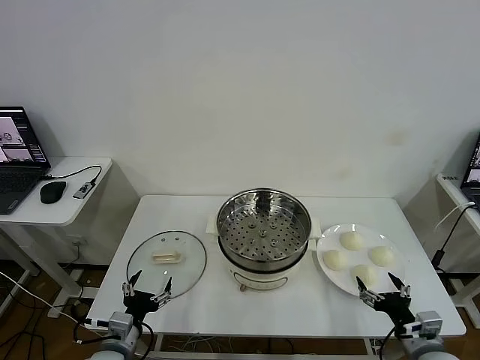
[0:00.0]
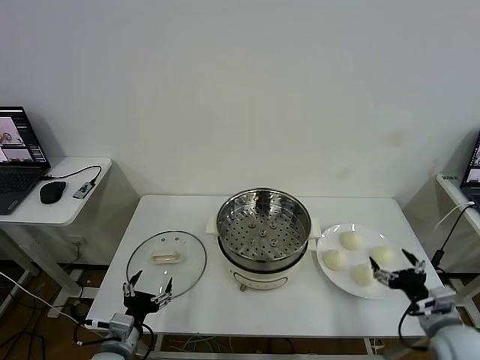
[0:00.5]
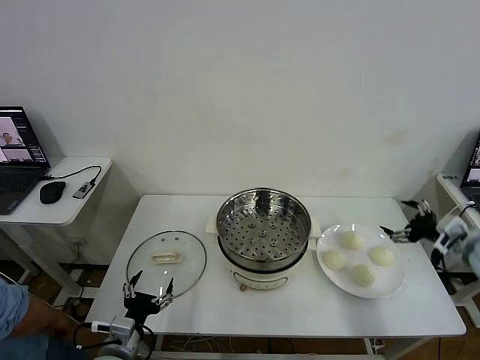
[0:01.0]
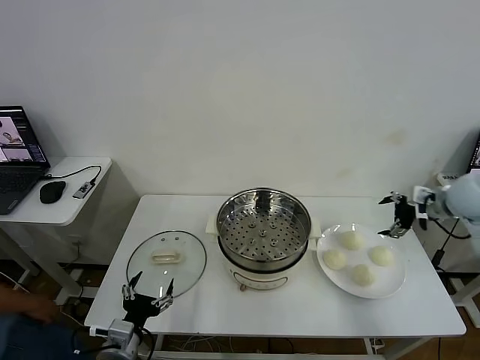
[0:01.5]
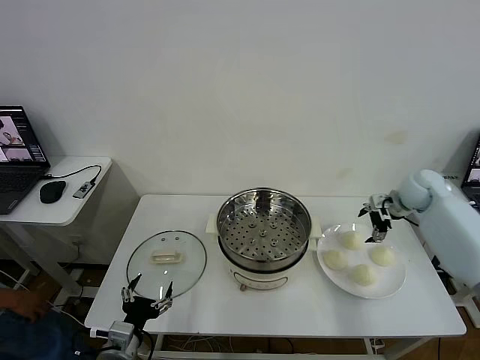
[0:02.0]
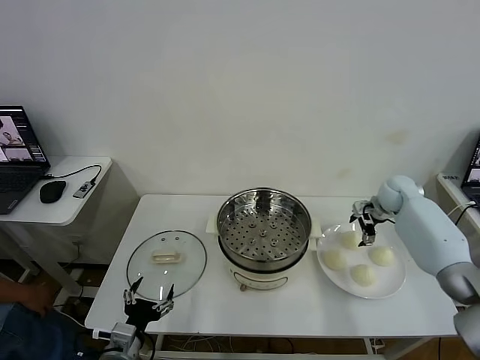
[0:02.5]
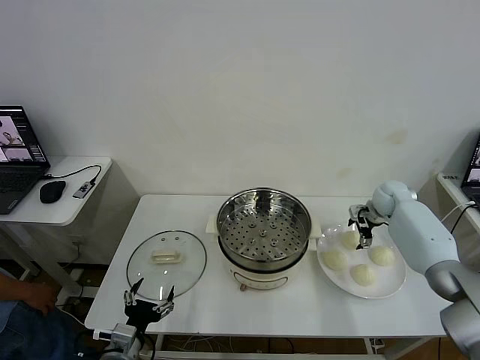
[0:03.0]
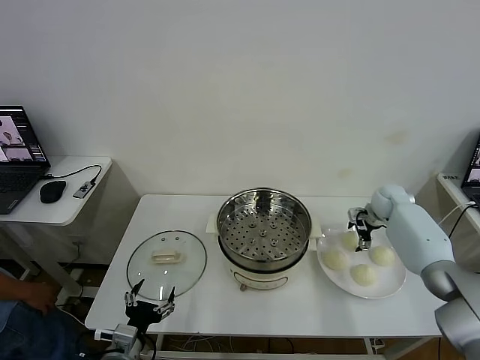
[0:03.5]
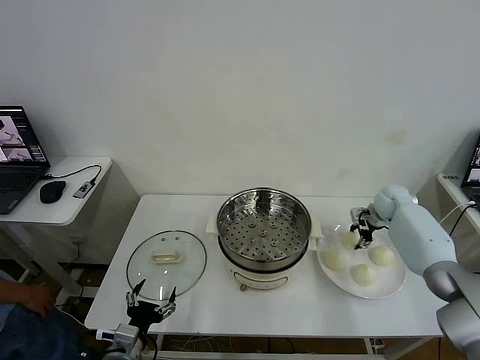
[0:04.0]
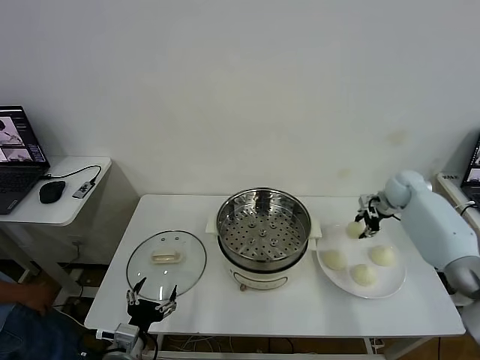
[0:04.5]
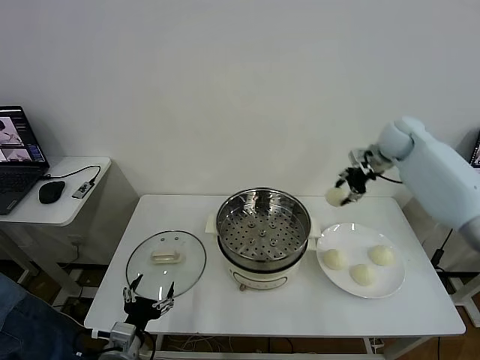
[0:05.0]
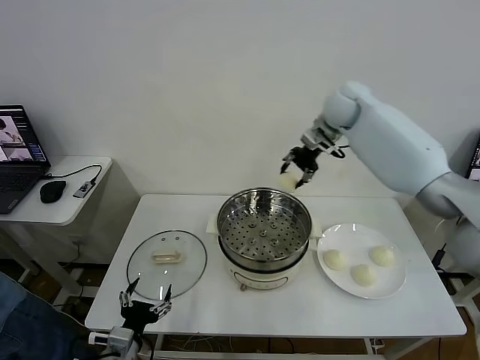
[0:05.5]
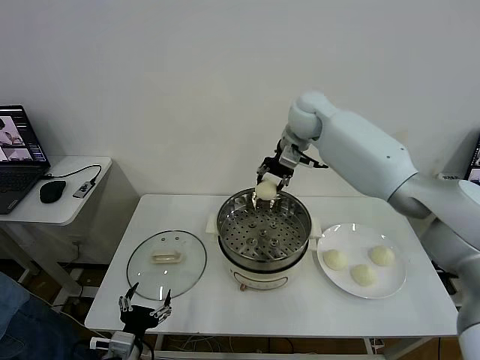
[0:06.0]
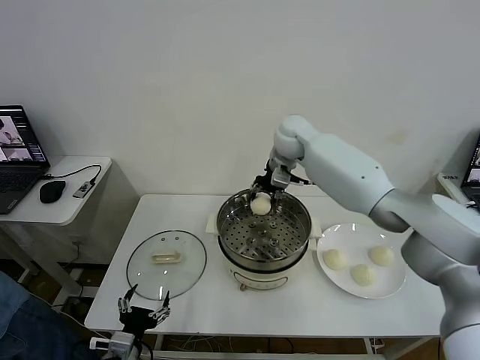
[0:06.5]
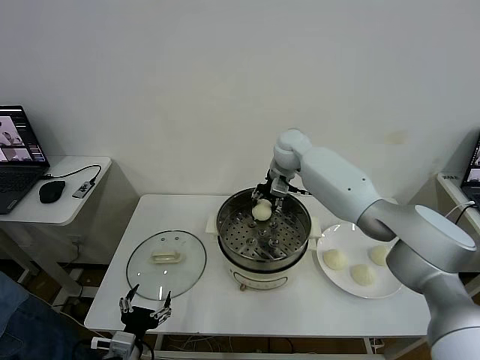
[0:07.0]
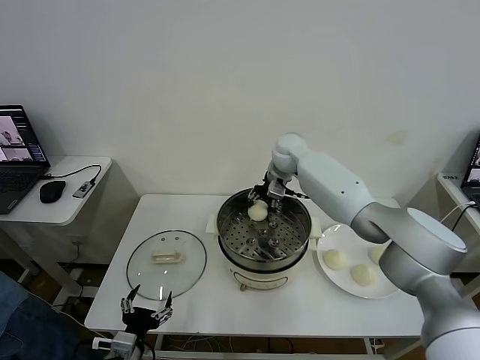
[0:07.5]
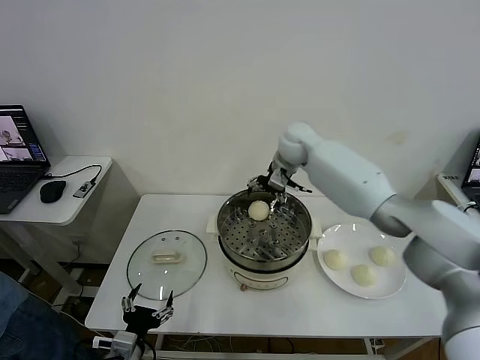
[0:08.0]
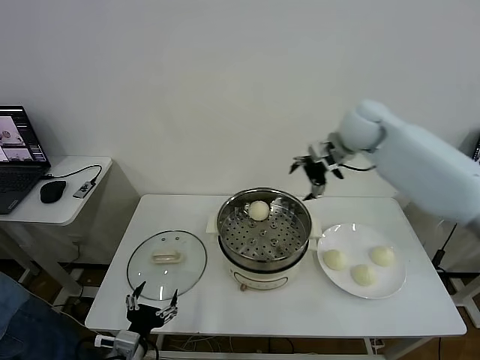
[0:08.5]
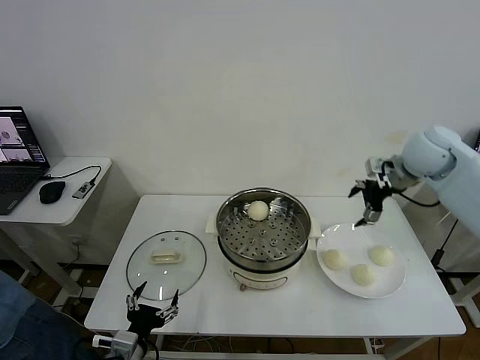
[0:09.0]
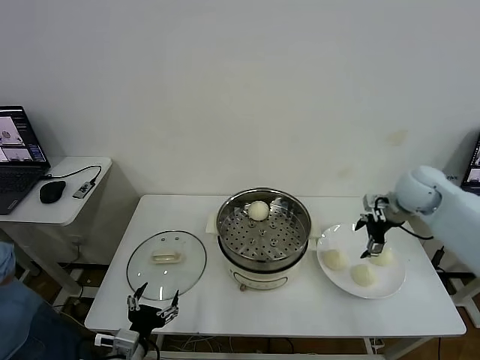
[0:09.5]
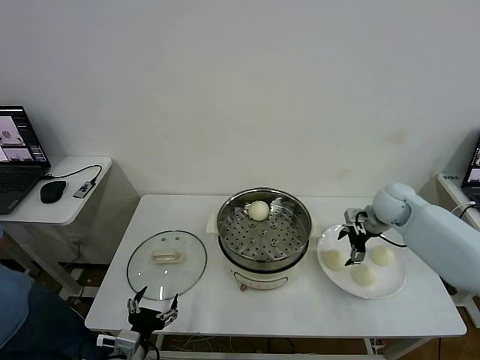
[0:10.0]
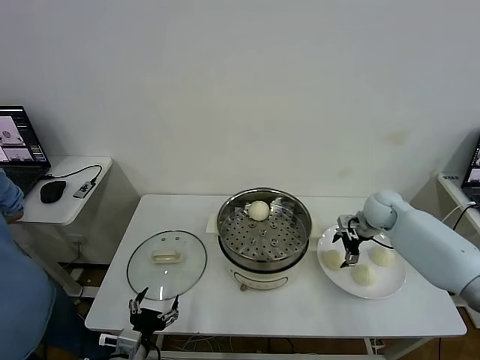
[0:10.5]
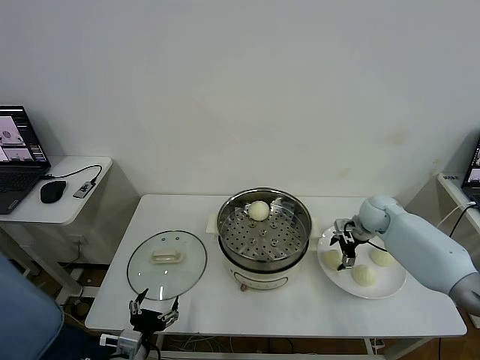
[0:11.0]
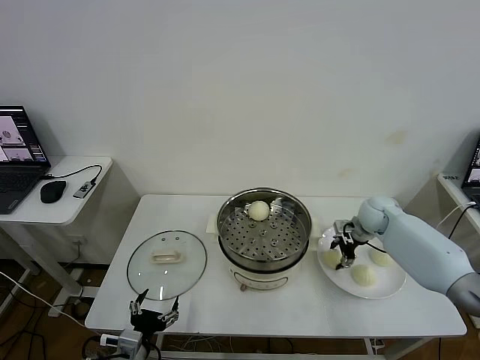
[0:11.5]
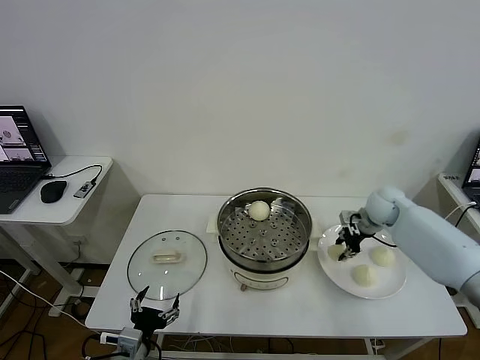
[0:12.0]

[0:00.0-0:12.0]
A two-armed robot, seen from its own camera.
Task of the whole recording: take steamed baozi put them in steamer then cover it.
Step, 0:00.0 to 0:04.0: Grasp the baozi in the plate with right gripper.
Step, 0:04.5 to 0:07.5: Place the baozi on the steamer with right gripper.
Step, 0:08.0 to 0:11.5: Grasp the baozi in the plate with right gripper.
0:02.0 to 0:04.0: The right gripper heads downward, covering some 5 cm, and closes up.
0:04.0 to 0:06.0: The right gripper moves to the left and upward, roughly 35 cm.
0:06.0 to 0:08.0: The right gripper opens.
0:08.0 to 0:10.0: The right gripper heads to the right, downward and backward, covering about 25 cm.
0:10.0 to 0:12.0: The right gripper closes its fingers.

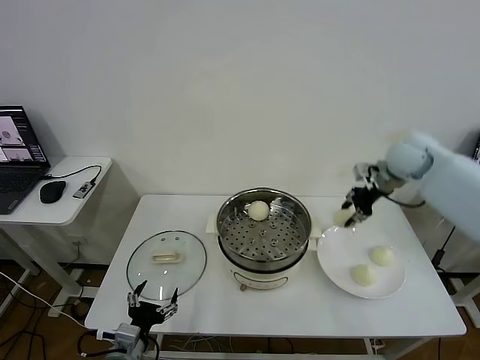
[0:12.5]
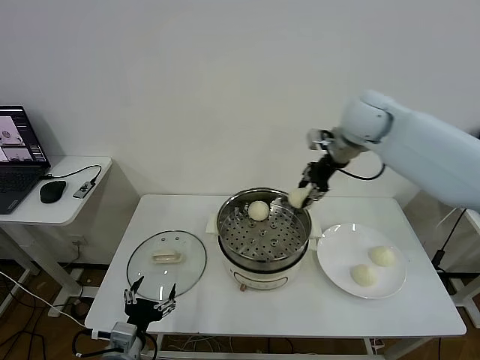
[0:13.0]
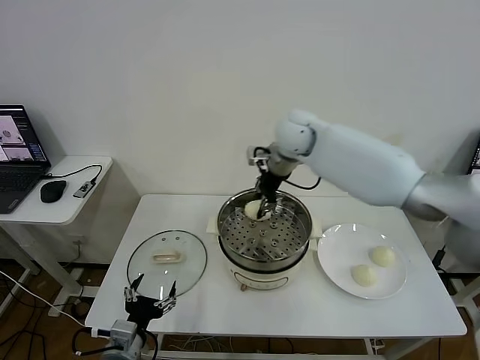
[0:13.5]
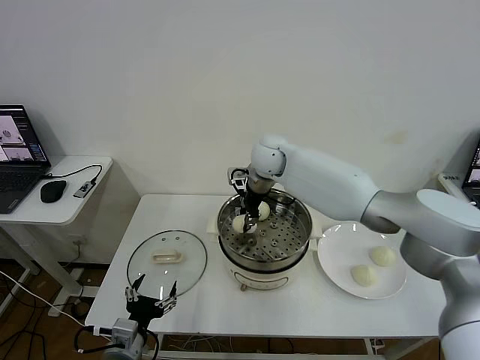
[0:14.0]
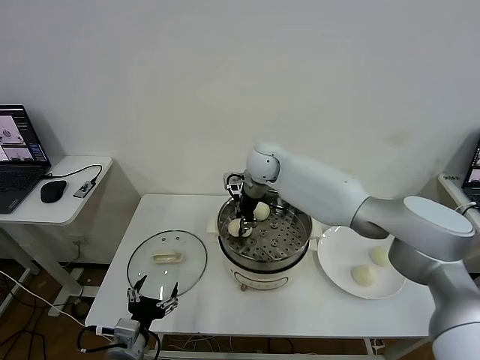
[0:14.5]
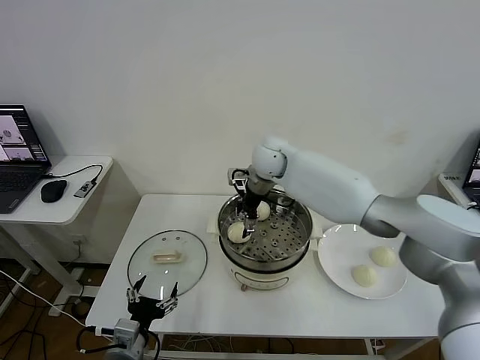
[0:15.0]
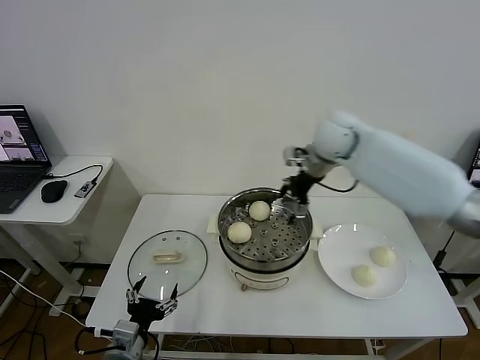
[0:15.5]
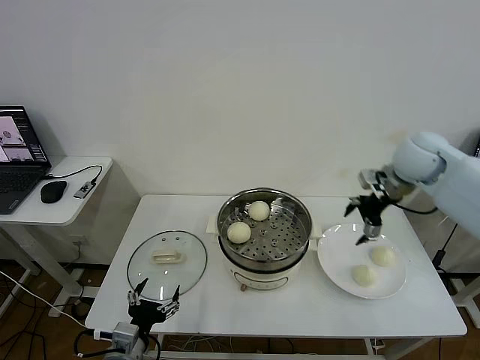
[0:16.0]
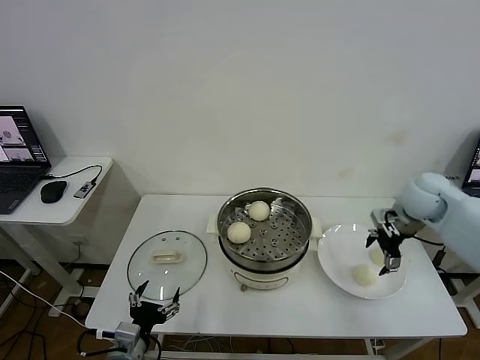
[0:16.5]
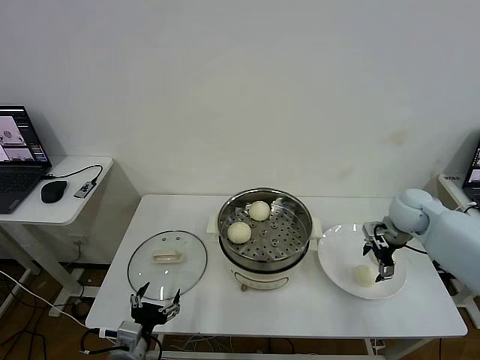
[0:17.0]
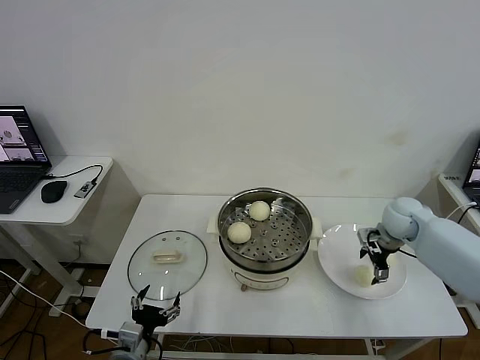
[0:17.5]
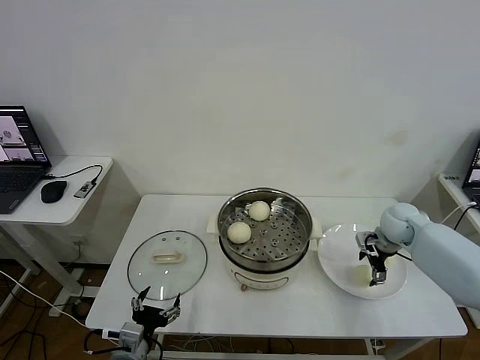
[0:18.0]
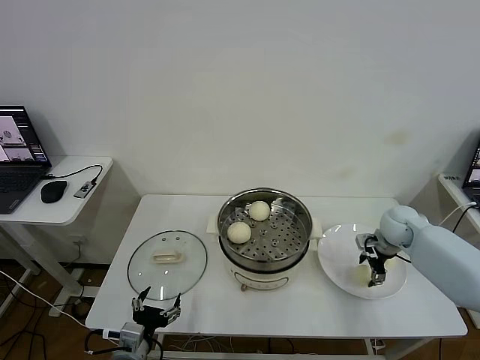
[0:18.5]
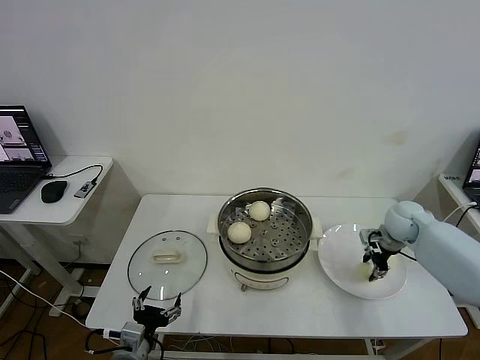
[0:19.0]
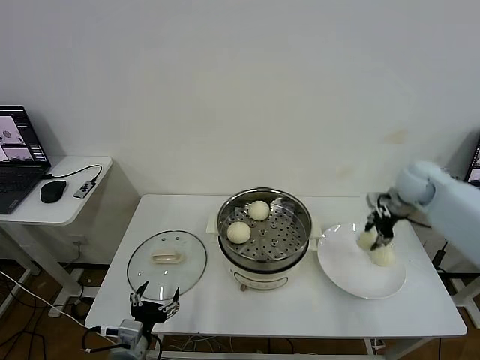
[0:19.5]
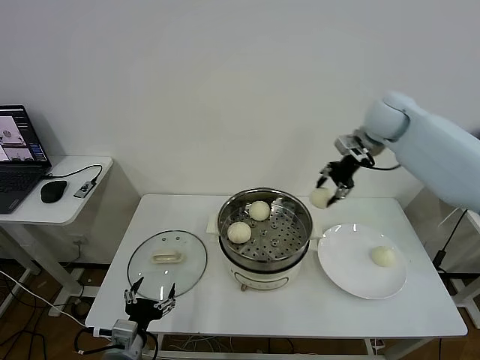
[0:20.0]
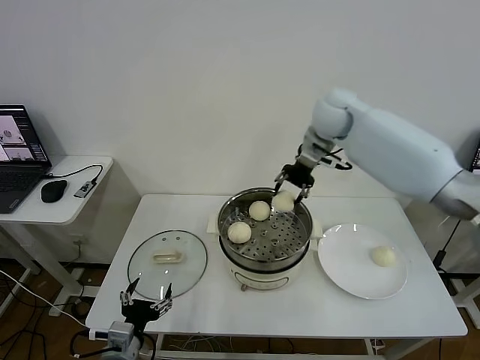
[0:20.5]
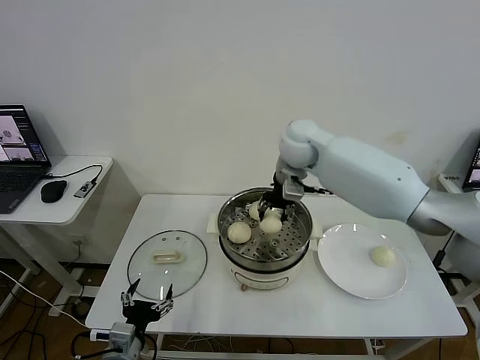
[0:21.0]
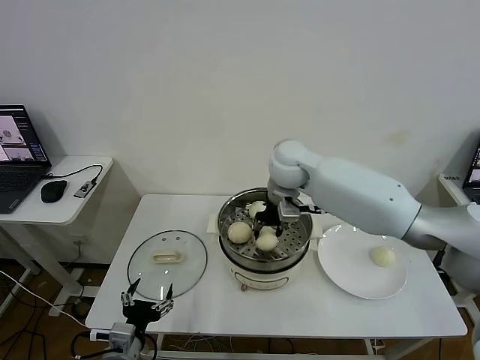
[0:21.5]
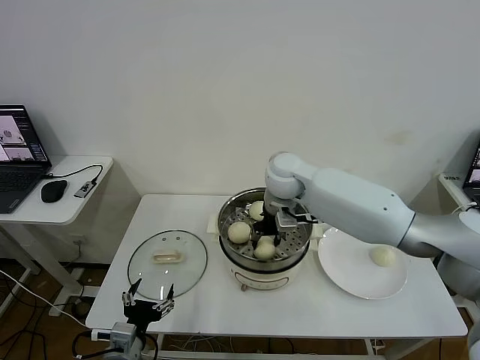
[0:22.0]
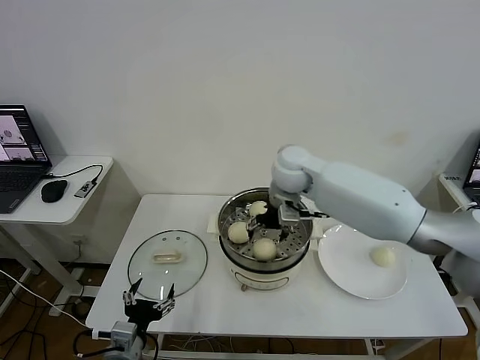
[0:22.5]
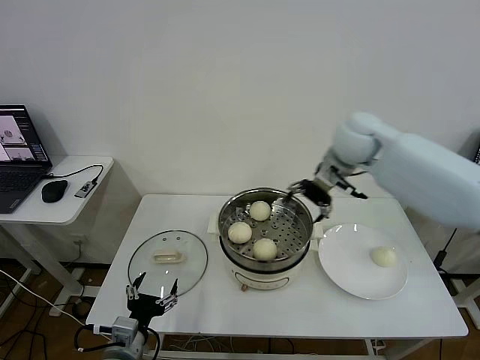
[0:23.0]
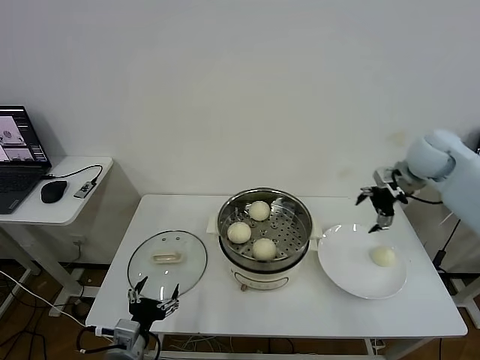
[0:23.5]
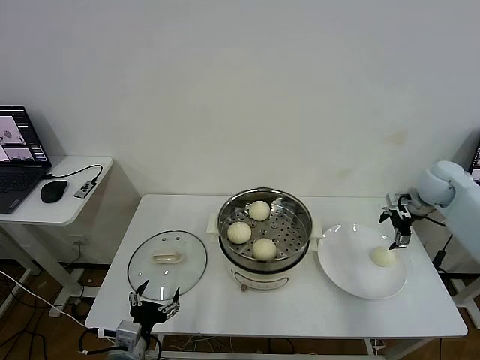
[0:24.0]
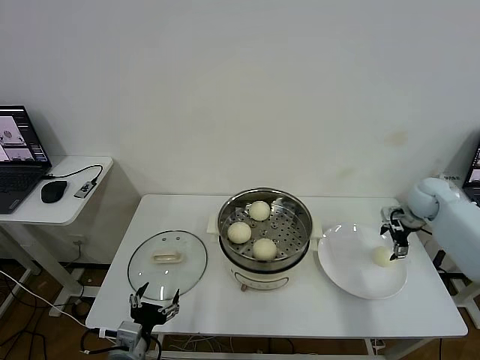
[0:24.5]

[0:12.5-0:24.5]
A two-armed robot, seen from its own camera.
Task of the whole recording: take steamed baozi put them in steamer then cover it.
Step, 0:12.5 to 0:14.5: Place the baozi on the steamer with right gripper.
Step, 0:15.0 to 0:19.0: Grasp the baozi in the plate with right gripper.
Step, 0:19.5 to 0:22.5: Place the baozi on the steamer with right gripper.
0:12.5 to 0:14.5: The right gripper heads to the left, covering approximately 30 cm.
0:14.5 to 0:16.5: The right gripper heads to the right, covering approximately 35 cm, and opens its fingers.
0:16.5 to 0:18.5: The right gripper travels downward by about 10 cm.
0:18.5 to 0:20.5: The right gripper travels upward, to the left and forward by approximately 35 cm, and closes up.
0:20.5 to 0:22.5: The right gripper is displaced downward, backward and to the left by roughly 10 cm, and opens up.
0:22.5 to 0:24.5: The right gripper goes approximately 35 cm to the right.

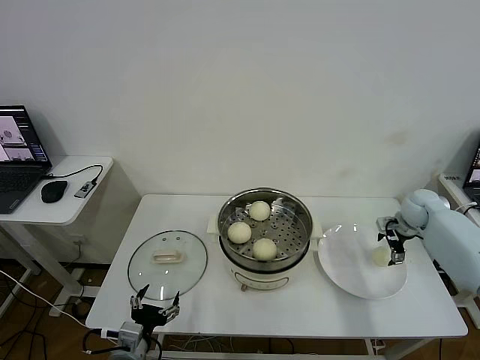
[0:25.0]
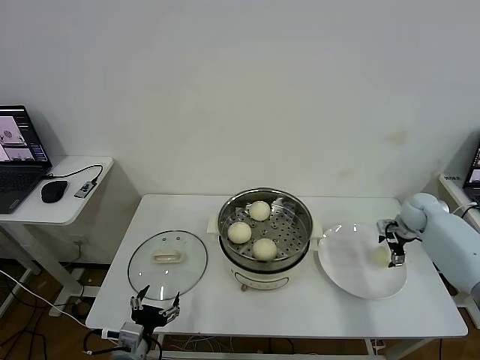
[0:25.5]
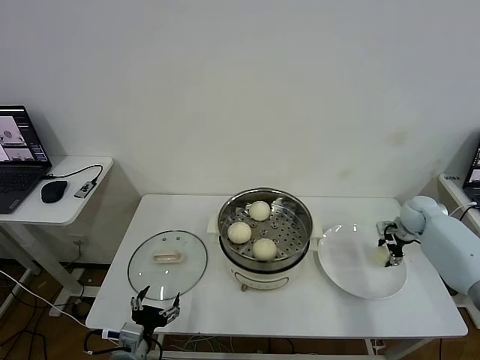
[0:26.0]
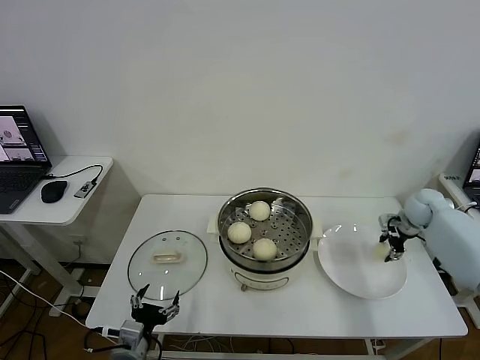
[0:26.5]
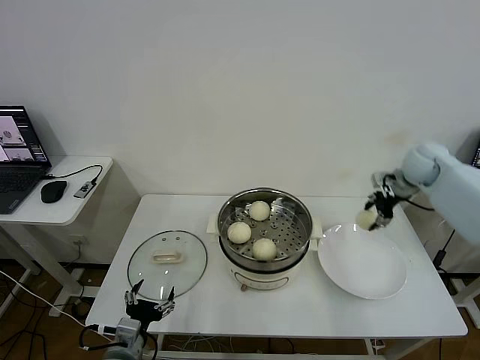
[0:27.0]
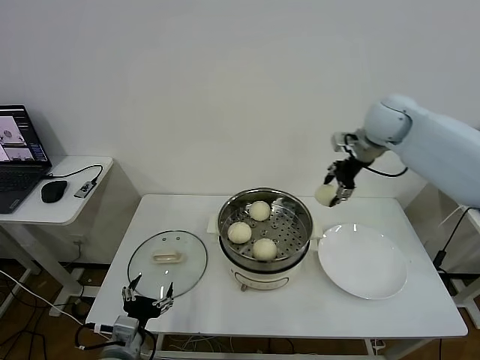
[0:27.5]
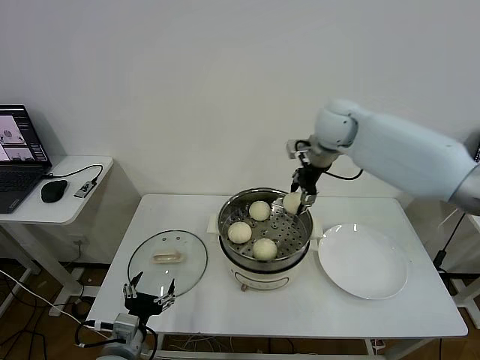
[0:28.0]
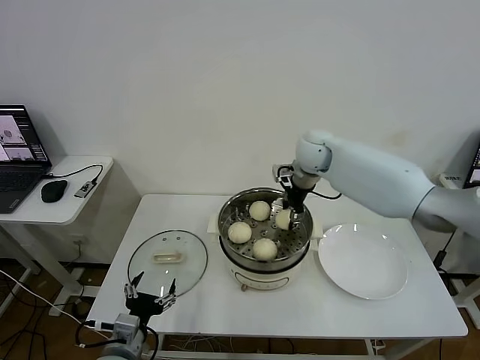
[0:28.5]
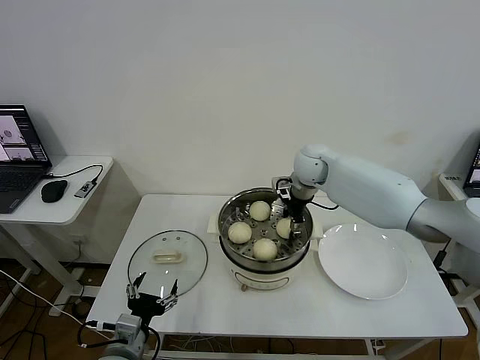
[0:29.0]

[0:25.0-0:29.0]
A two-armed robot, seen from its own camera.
Task of the whole recording: take steamed baozi put them in steamer then cover it.
0:25.0 to 0:27.0: The right gripper is displaced upward by approximately 15 cm, and closes.
0:27.0 to 0:29.0: The right gripper heads to the left, covering approximately 25 cm.
